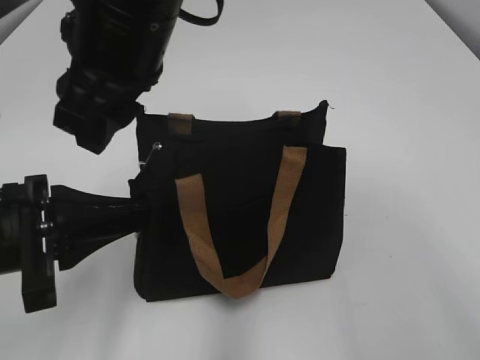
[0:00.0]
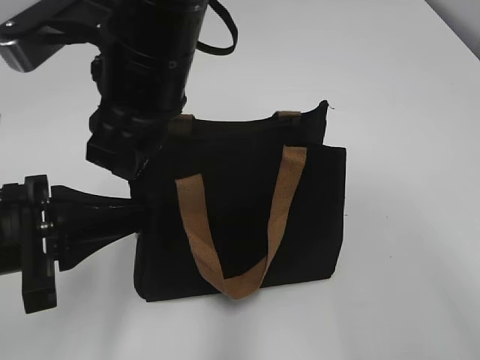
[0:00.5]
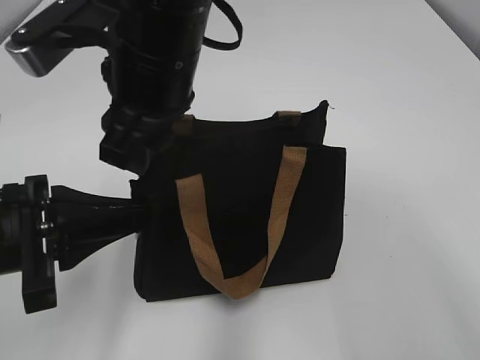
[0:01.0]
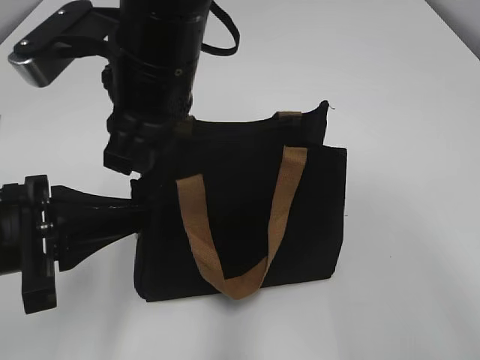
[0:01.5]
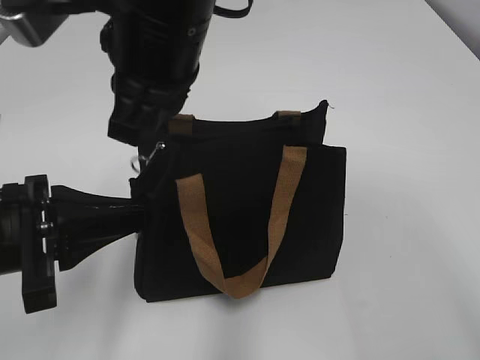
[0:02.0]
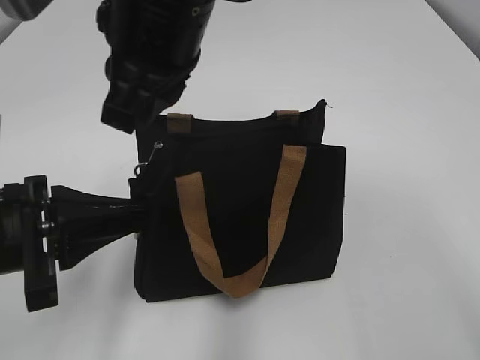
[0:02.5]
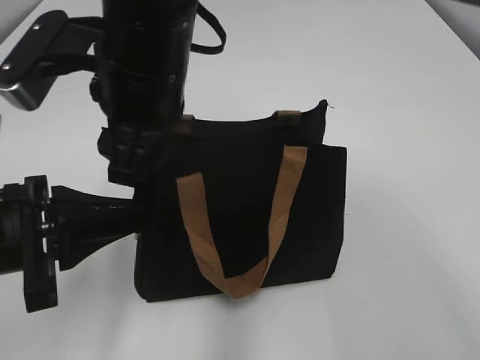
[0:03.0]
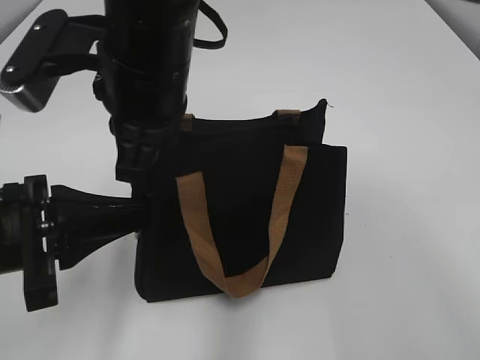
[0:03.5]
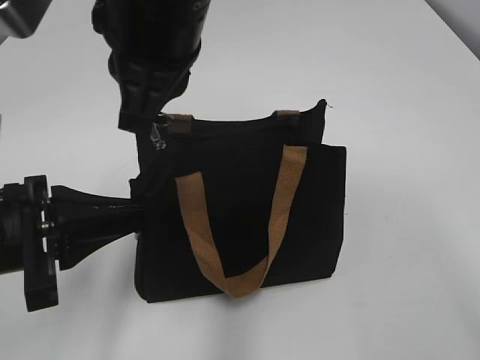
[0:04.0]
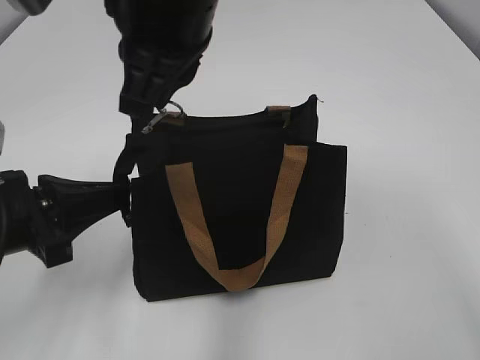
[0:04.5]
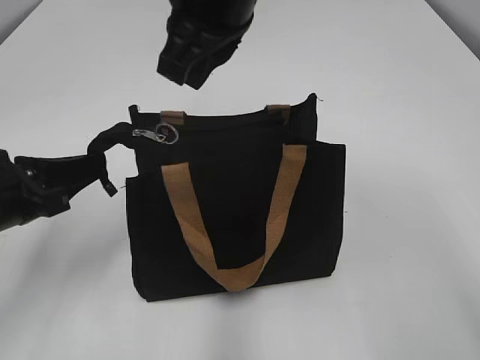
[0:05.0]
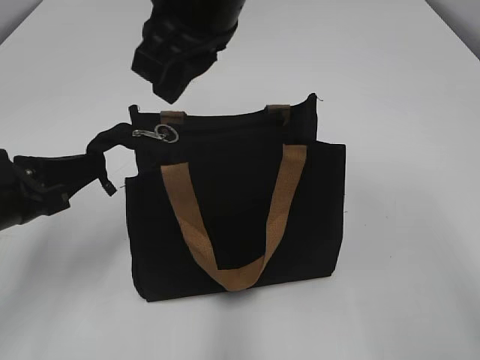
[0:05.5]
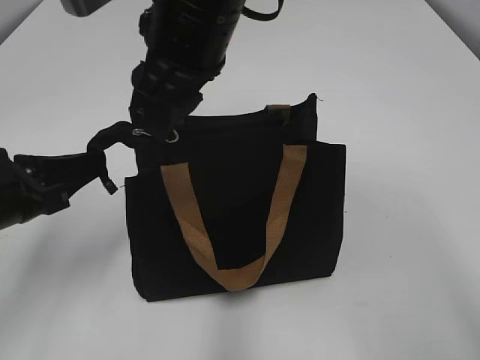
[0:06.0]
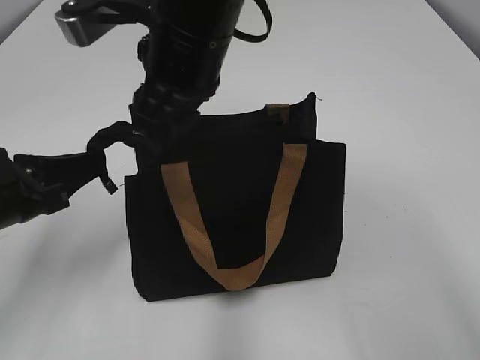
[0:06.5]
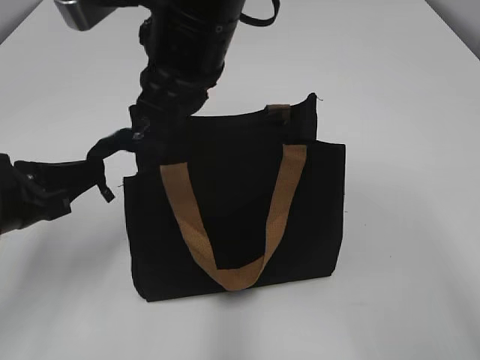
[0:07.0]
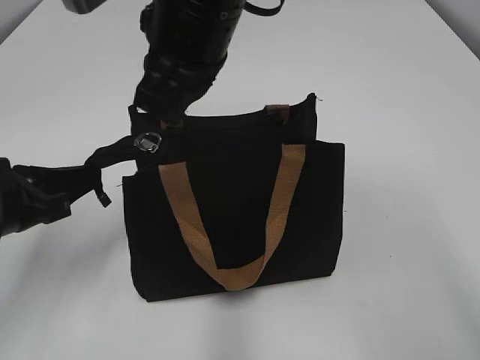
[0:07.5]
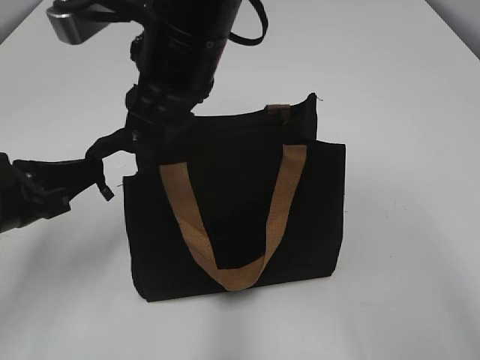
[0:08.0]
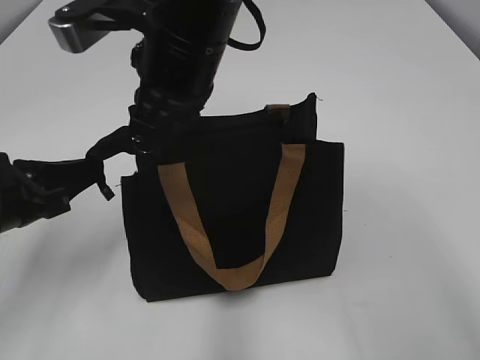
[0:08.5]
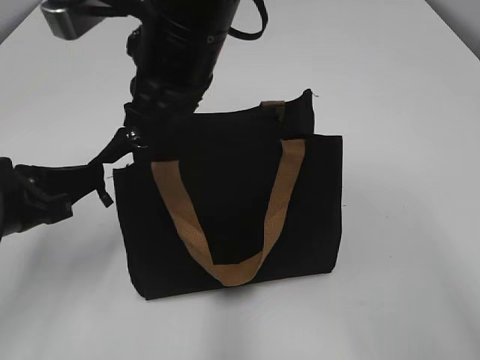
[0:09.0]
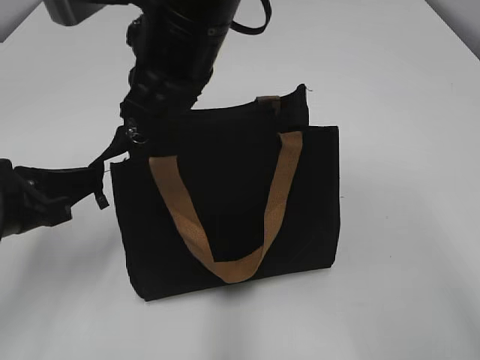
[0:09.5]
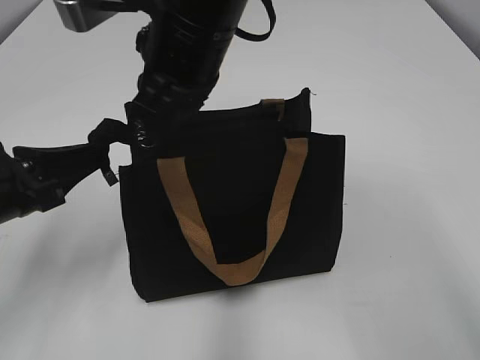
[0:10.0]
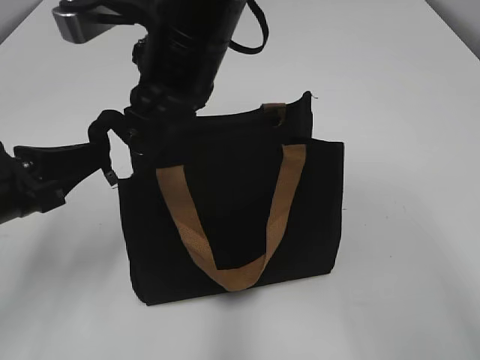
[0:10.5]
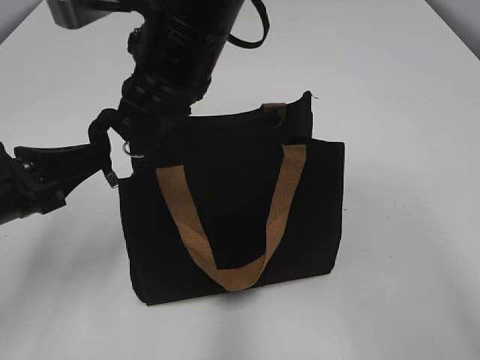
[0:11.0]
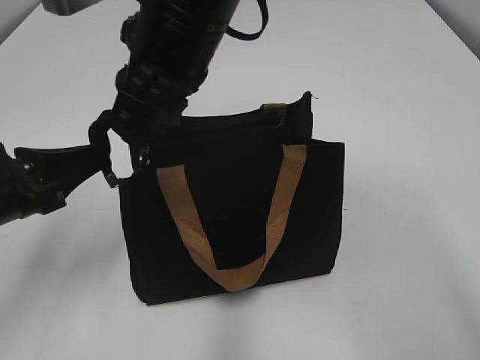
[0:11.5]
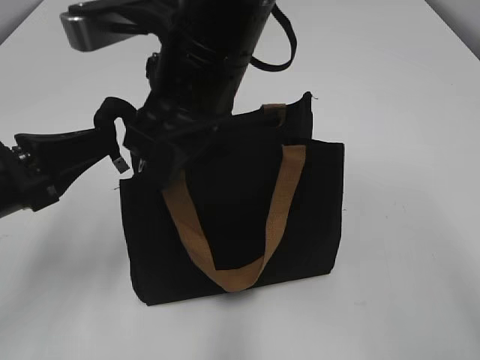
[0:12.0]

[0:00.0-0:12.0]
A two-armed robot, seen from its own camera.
0:00.0 to 0:02.0: The right gripper closes up.
0:02.0 to 0:04.0: The right gripper opens, then closes once more.
0:04.0 to 0:06.0: The right gripper shifts by roughly 5 cm, and opens up.
0:06.0 to 0:08.0: The right gripper closes, then reopens.
0:08.0 to 0:10.0: The right gripper closes up.
0:10.0 to 0:12.0: The right gripper opens.

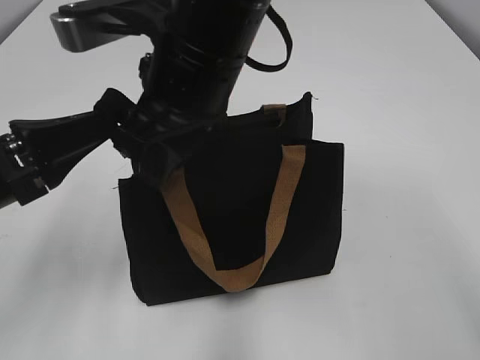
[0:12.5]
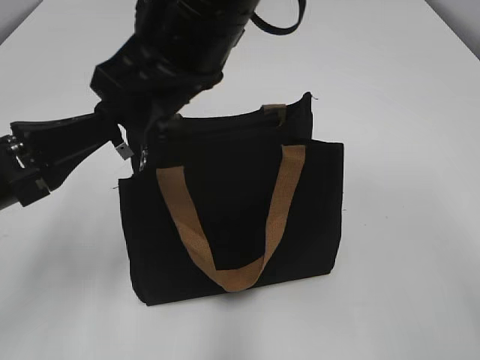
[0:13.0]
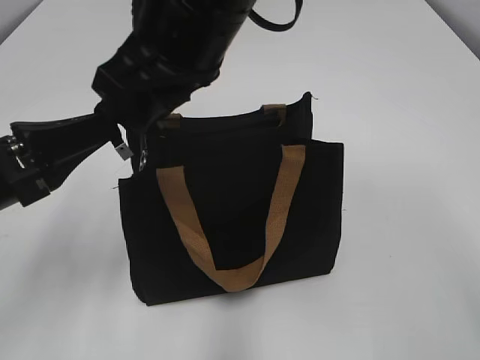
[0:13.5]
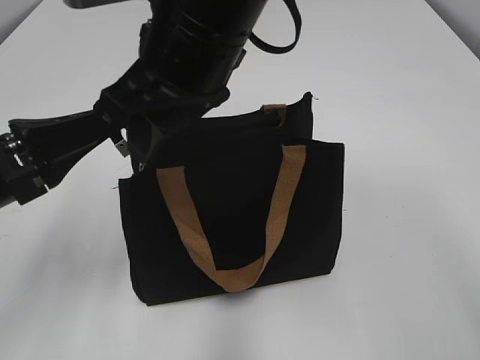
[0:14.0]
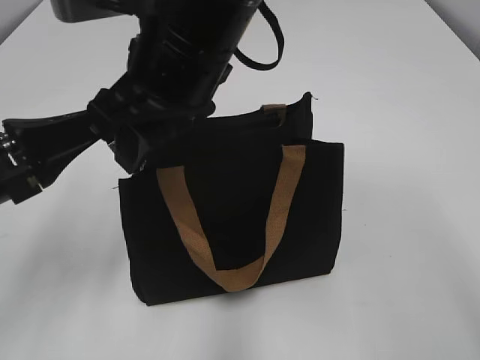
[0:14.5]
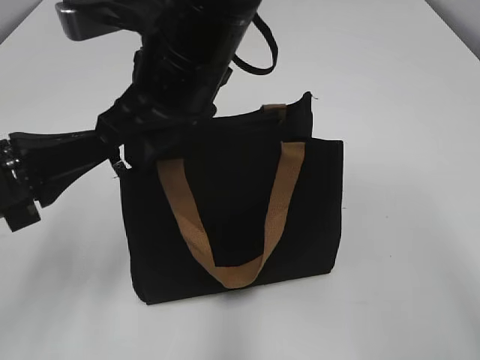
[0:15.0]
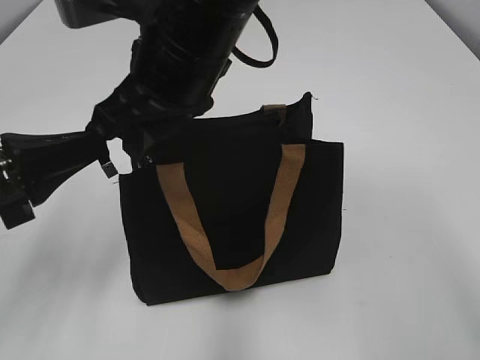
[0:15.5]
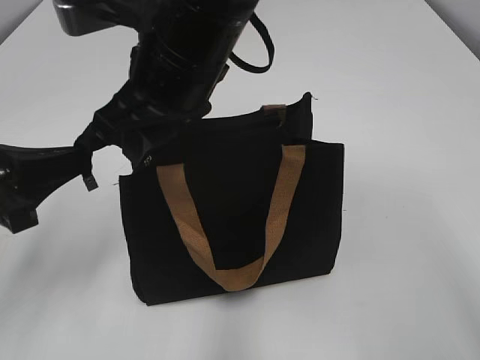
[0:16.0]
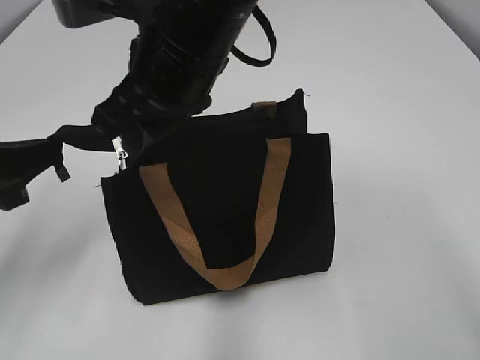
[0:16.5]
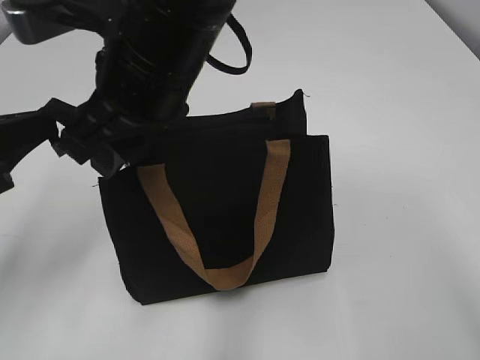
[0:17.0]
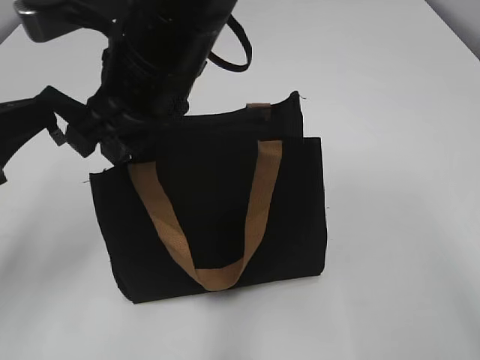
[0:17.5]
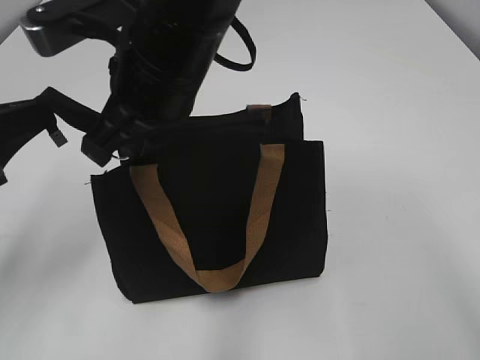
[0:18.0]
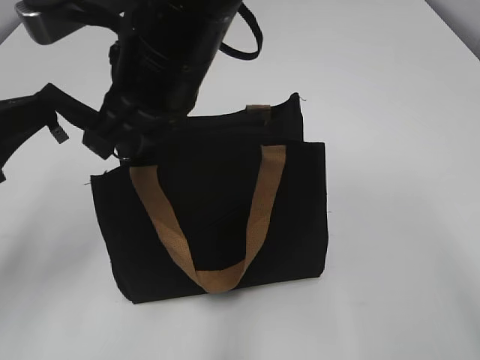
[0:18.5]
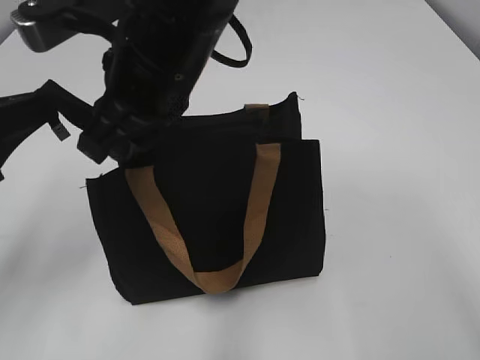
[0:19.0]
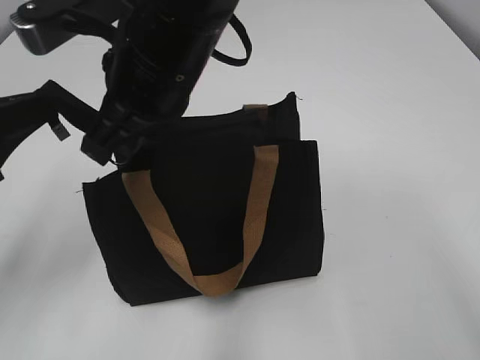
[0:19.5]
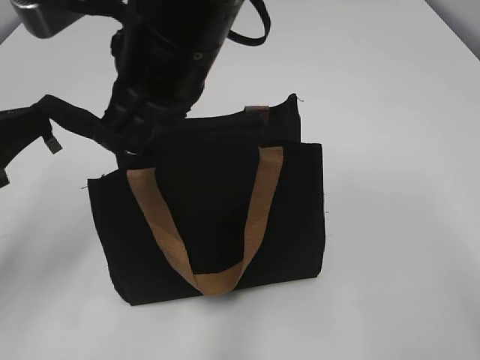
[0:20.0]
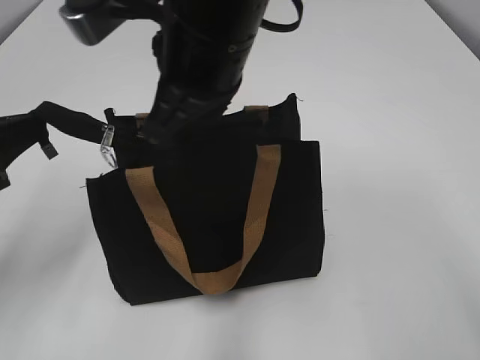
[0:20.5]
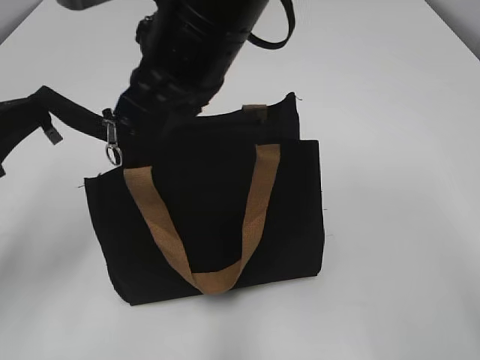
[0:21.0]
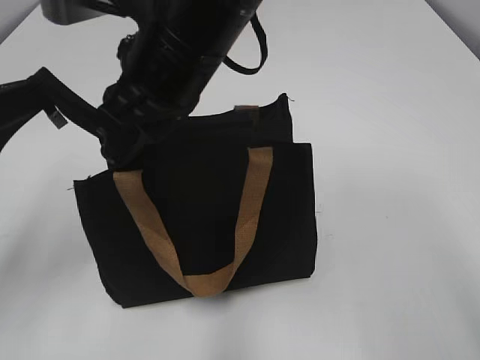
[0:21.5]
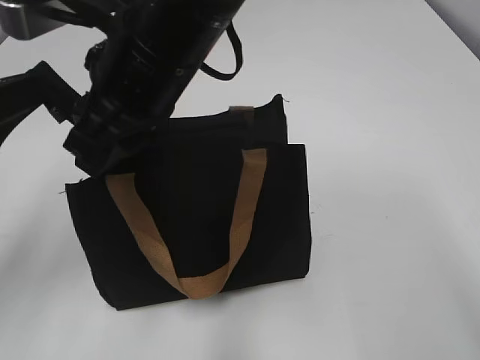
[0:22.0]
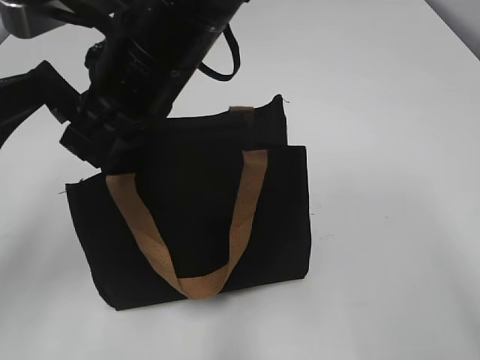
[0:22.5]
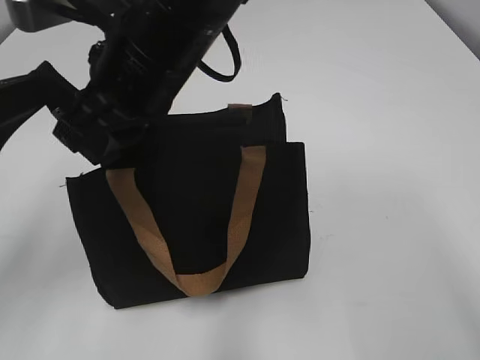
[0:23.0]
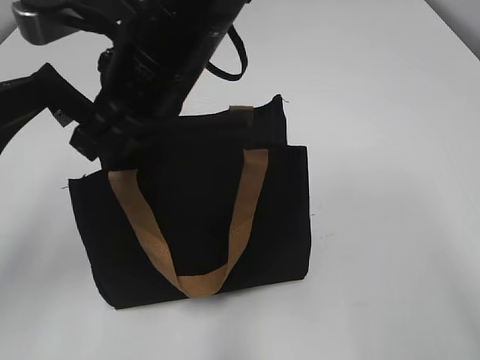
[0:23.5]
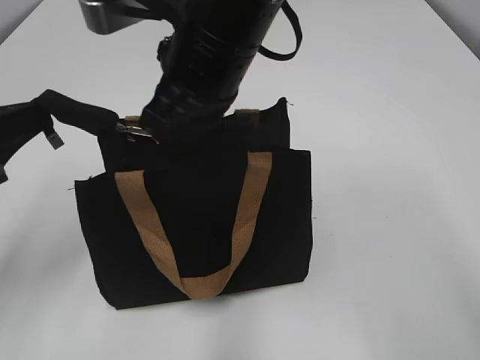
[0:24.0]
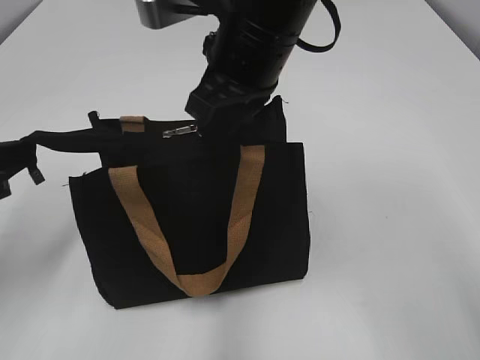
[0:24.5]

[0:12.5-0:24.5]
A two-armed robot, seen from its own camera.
0:12.5 to 0:14.5: There are only small adjustments of the grippers.
0:16.5 to 0:20.5: The grippers stay close to where they were, moving slightly.
0:22.5 to 0:24.5: The right gripper shifts approximately 10 cm to the right.

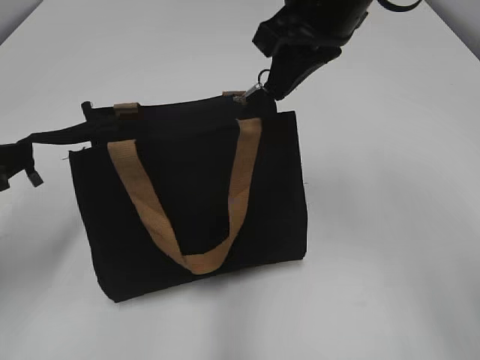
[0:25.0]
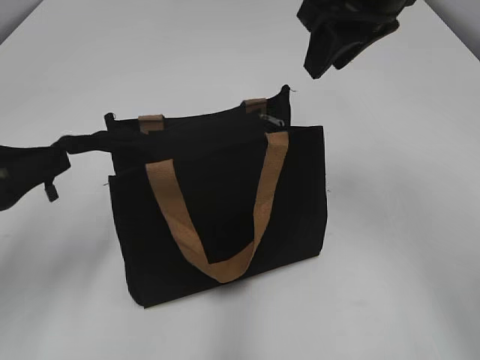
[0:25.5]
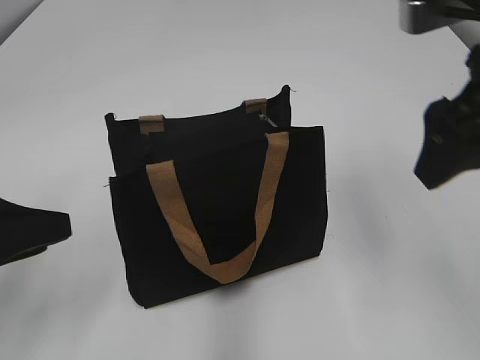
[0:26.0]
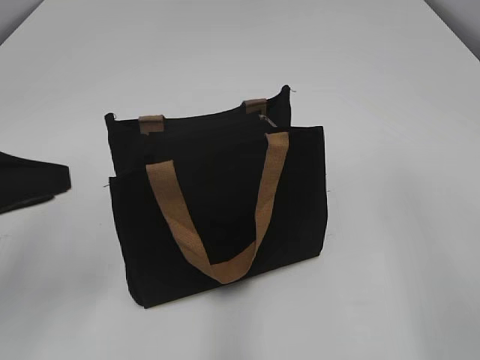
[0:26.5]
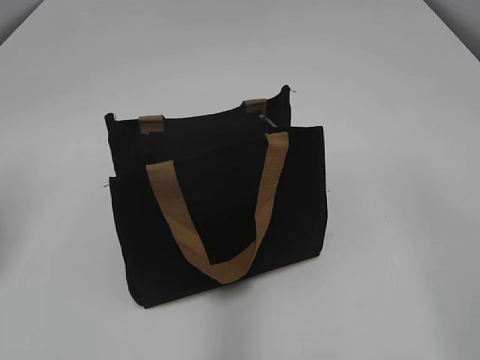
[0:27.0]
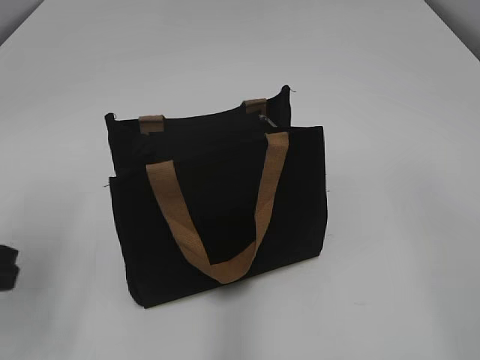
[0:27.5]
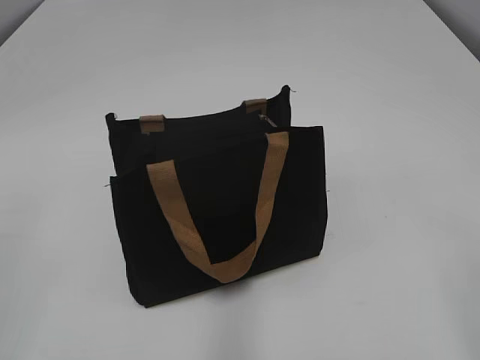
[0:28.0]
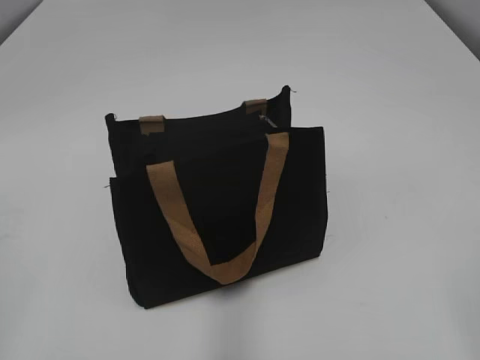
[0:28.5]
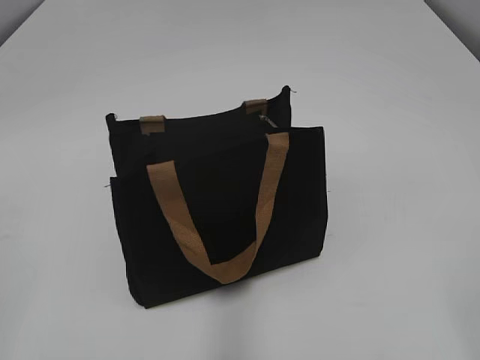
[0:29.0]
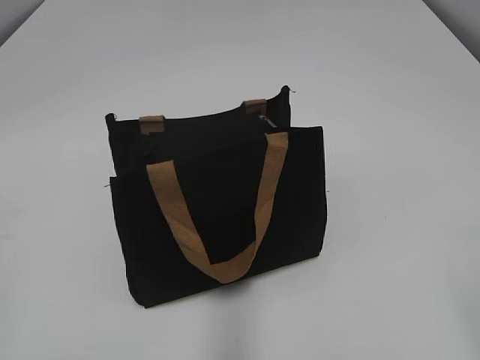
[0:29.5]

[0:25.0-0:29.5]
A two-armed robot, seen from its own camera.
0:25.0 to 0:27.0: The right gripper goes roughly 35 cm backward and to the right, and opens its fingers, while the left gripper moves some 5 cm, and opens up.
